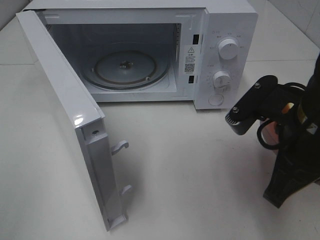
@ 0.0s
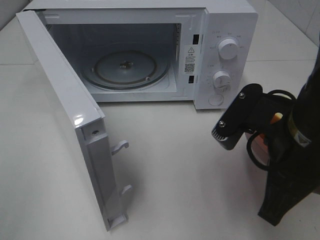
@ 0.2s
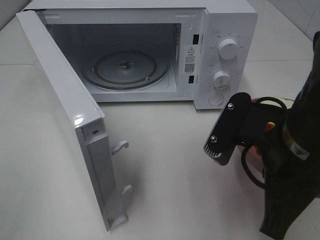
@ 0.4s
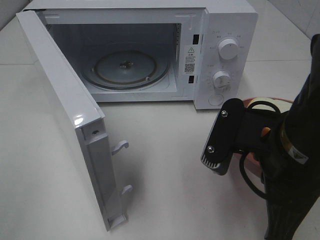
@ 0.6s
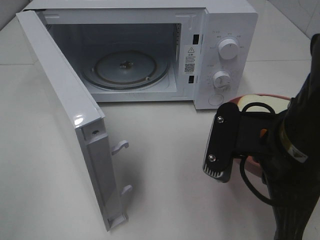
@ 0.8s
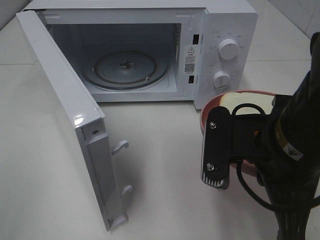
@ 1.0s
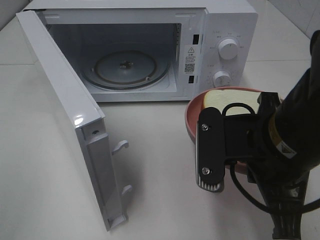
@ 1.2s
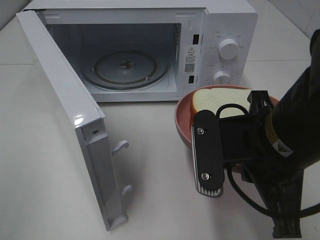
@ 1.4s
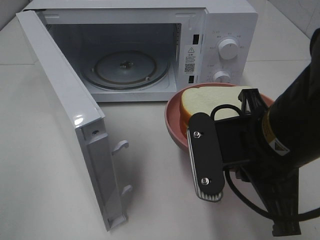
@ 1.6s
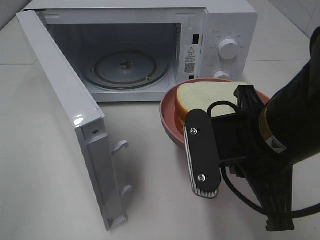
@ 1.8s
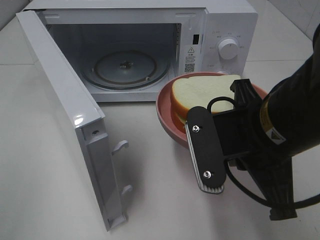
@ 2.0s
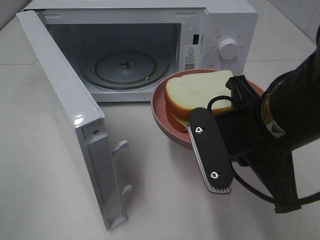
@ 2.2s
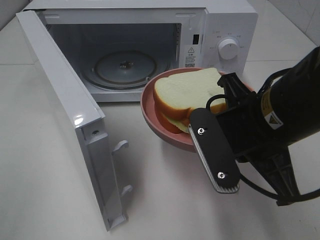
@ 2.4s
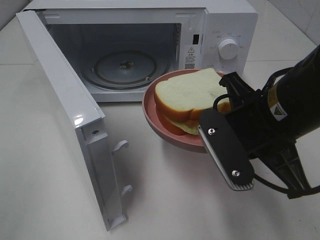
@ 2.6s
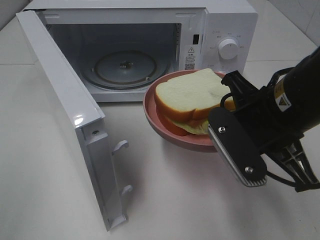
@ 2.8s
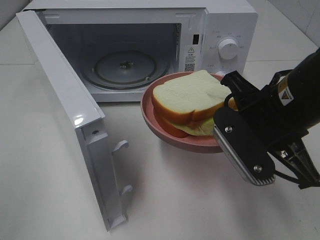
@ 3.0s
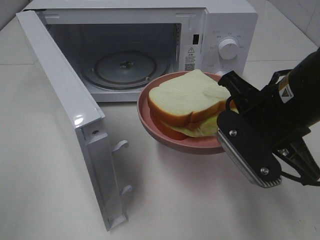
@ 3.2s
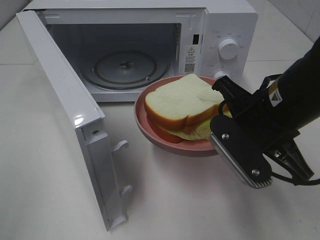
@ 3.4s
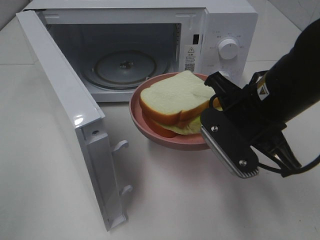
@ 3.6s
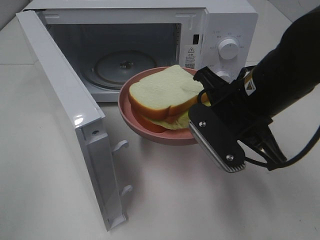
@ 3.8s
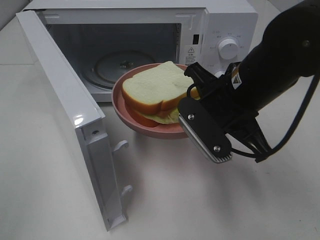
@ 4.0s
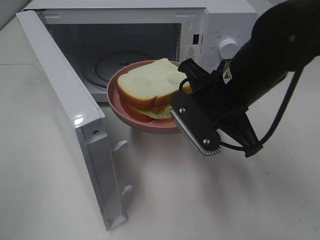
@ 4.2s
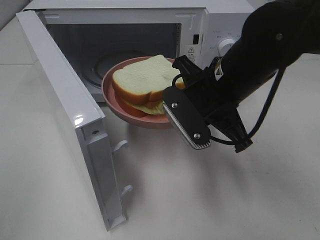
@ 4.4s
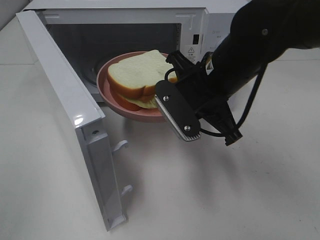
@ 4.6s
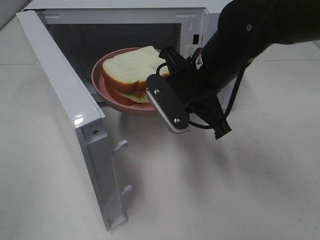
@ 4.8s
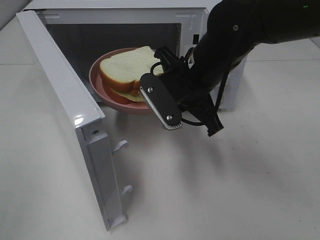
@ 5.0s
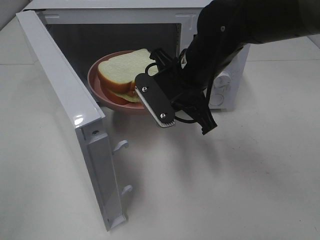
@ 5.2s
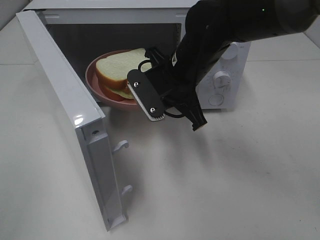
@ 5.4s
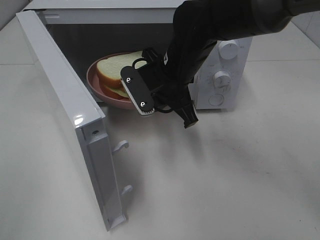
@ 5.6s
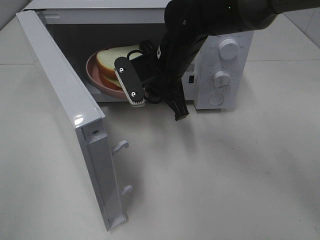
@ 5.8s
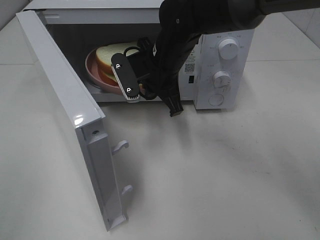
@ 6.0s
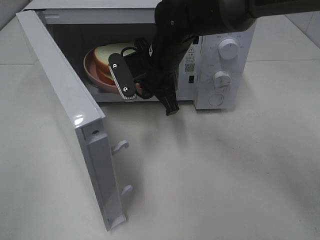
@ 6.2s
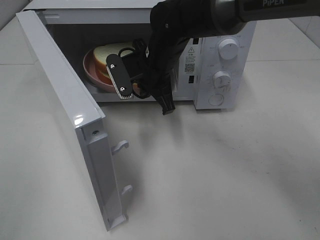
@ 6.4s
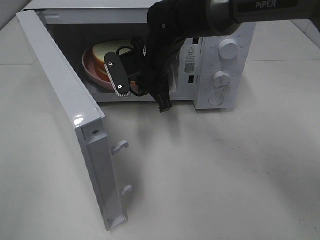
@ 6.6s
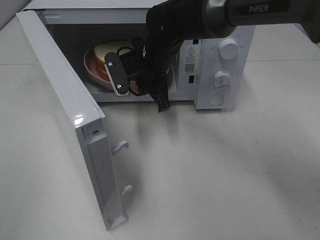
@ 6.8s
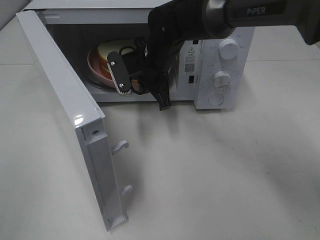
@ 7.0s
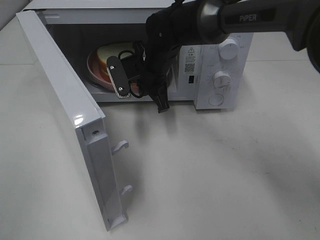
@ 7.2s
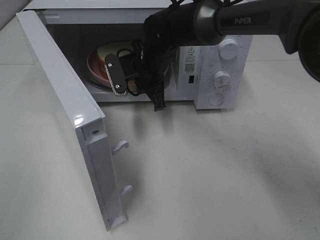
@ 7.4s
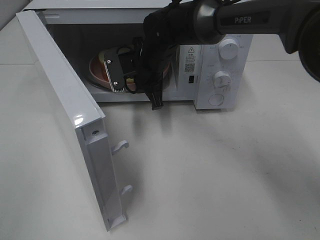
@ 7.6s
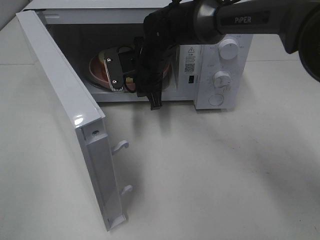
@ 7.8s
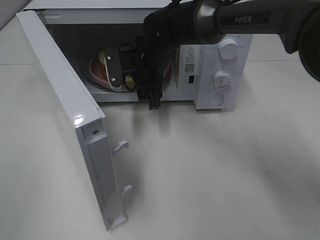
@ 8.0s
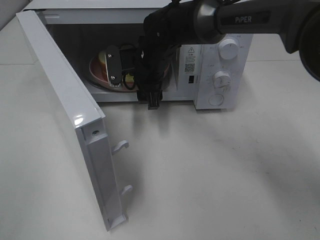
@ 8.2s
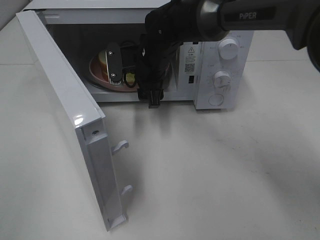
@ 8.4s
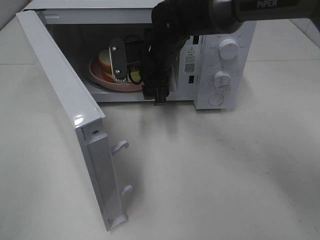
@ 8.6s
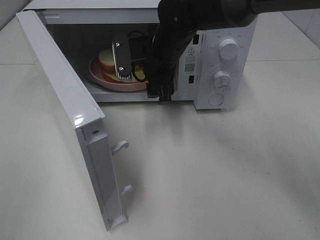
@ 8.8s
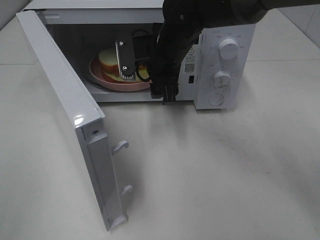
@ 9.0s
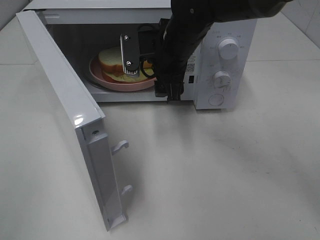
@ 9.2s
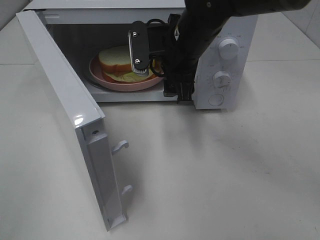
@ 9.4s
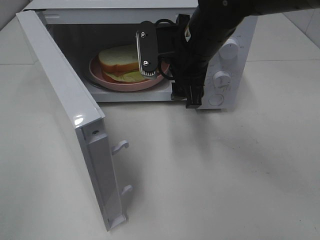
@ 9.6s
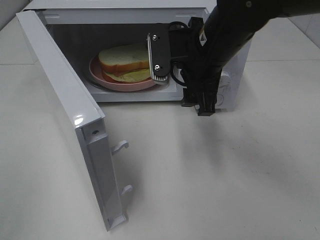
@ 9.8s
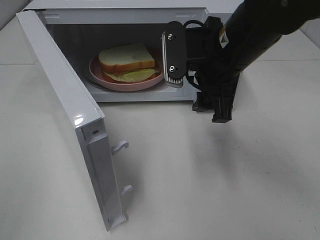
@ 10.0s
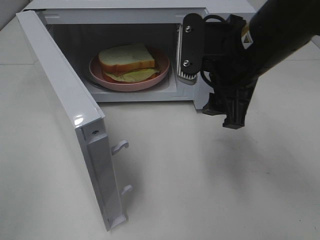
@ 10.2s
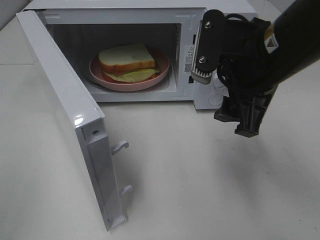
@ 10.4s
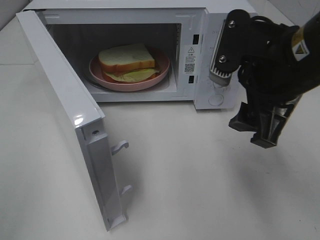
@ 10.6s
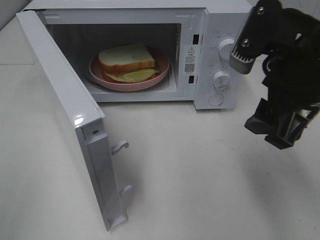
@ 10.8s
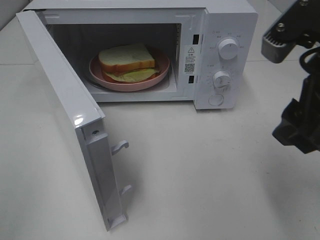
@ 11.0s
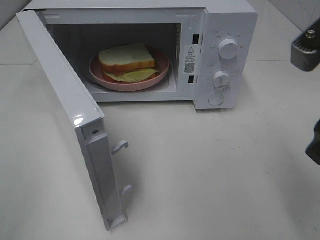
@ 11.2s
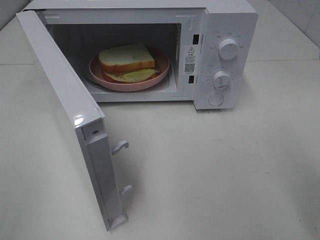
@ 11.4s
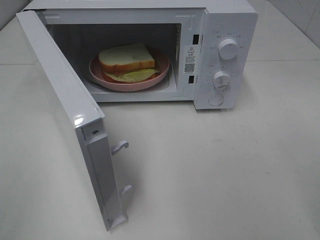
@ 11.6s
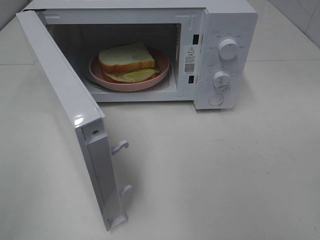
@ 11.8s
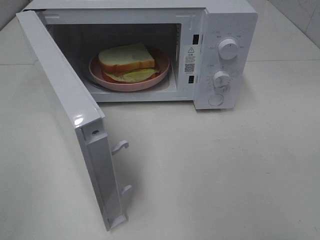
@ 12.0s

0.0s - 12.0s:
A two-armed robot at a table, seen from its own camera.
Task of the whole recording: Heat Sandwich.
Step, 0.0s - 8.6s: Right hand: place the plate in the microwave.
0.0s - 1.6s: The right gripper shifts by some 5 cm.
1.6s - 3.0s: The right gripper shifts by some 5 cm.
3.0s - 4.4s: The right gripper goes roughly 10 cm forward and to the left.
4.4s - 6.0s: The right gripper is displaced forward and to the left by roughly 15 cm.
6.0s - 7.6s: The right gripper heads forward, covering roughly 5 cm.
7.6s - 9.0s: The right gripper moves some 5 cm, and opens.
9.0s - 10.4s: The right gripper shifts approximately 20 cm backward, to the right and upward.
10.4s - 12.0s: The right gripper travels backward and to the right by roughly 20 cm.

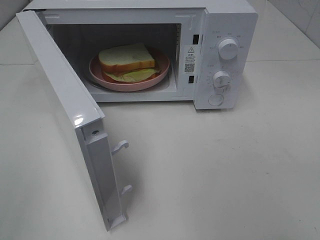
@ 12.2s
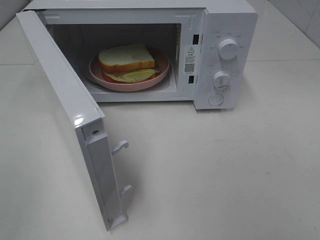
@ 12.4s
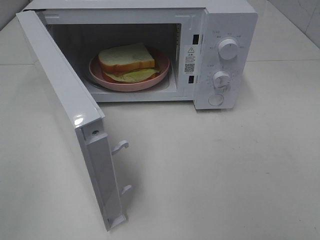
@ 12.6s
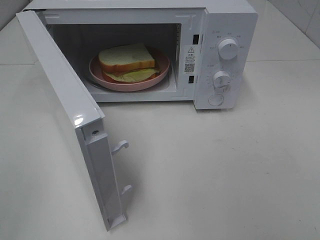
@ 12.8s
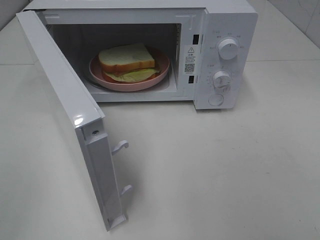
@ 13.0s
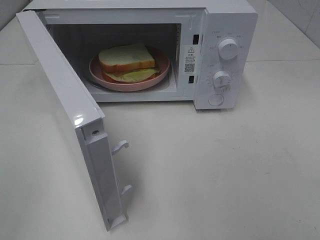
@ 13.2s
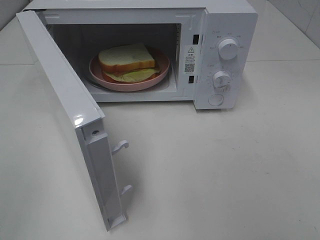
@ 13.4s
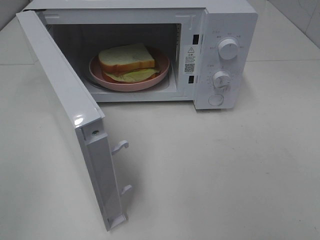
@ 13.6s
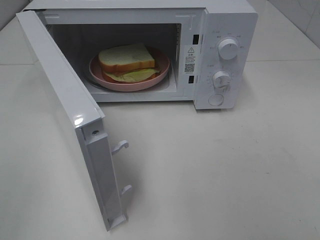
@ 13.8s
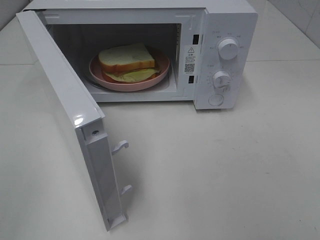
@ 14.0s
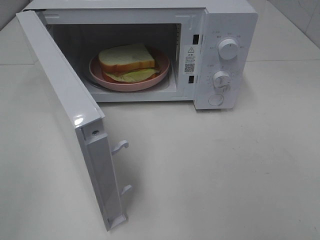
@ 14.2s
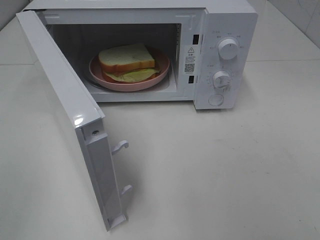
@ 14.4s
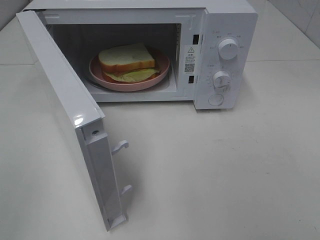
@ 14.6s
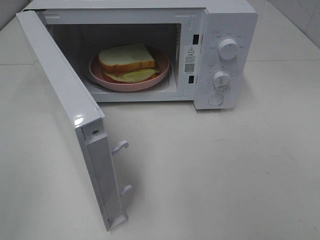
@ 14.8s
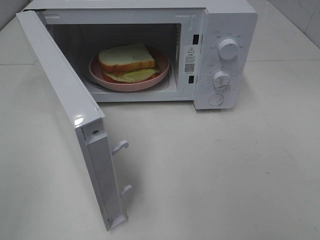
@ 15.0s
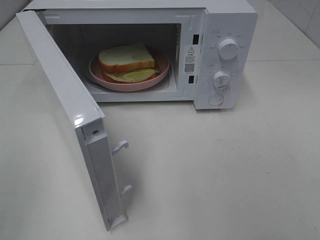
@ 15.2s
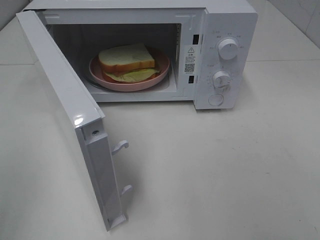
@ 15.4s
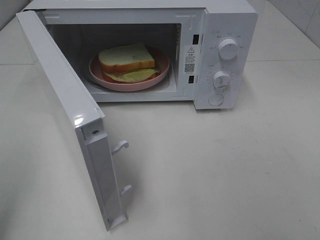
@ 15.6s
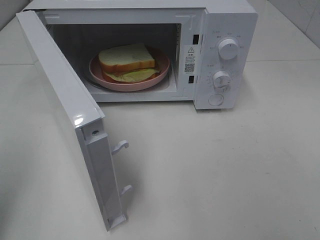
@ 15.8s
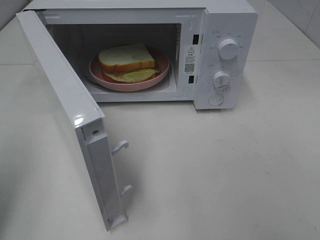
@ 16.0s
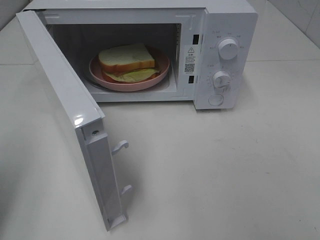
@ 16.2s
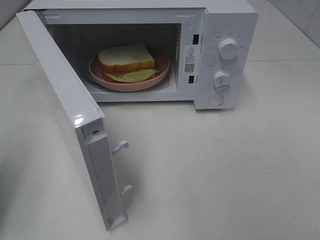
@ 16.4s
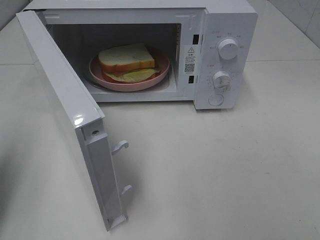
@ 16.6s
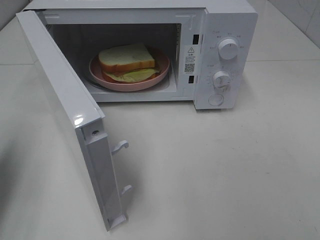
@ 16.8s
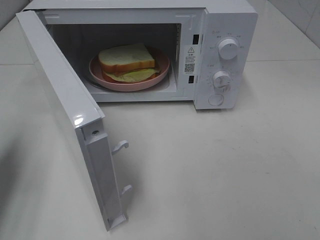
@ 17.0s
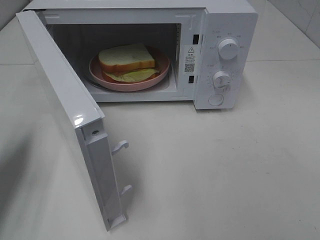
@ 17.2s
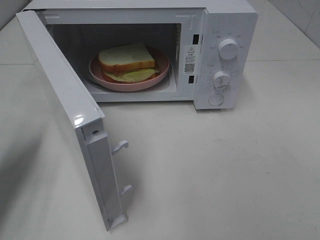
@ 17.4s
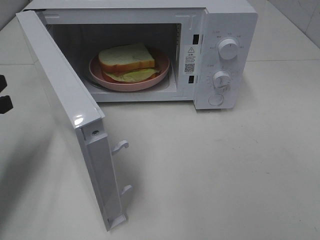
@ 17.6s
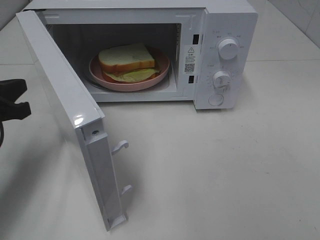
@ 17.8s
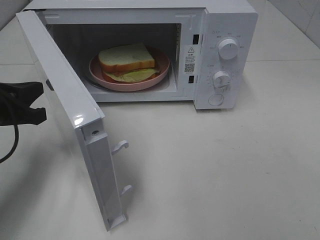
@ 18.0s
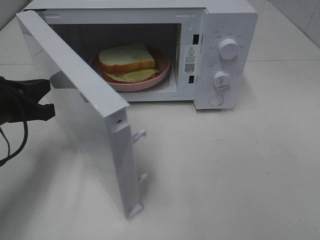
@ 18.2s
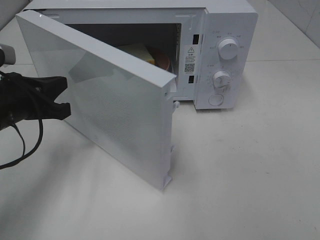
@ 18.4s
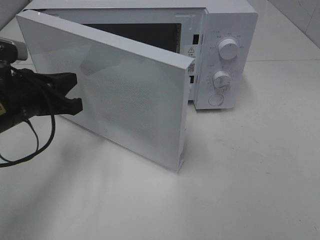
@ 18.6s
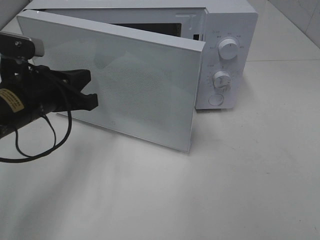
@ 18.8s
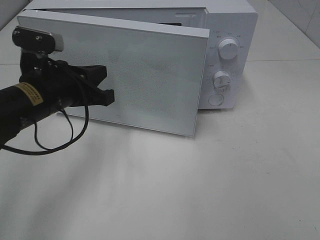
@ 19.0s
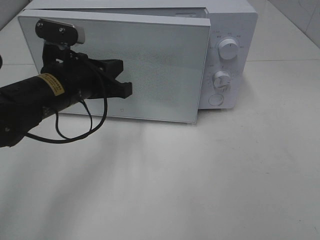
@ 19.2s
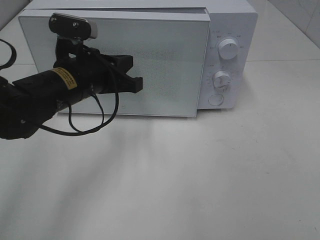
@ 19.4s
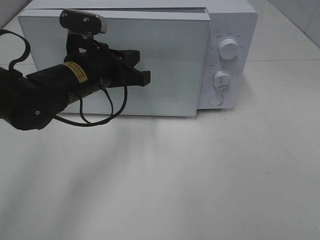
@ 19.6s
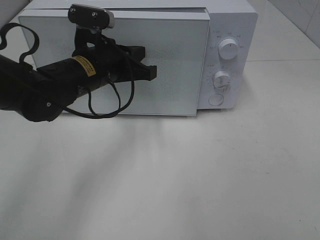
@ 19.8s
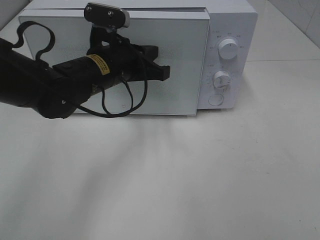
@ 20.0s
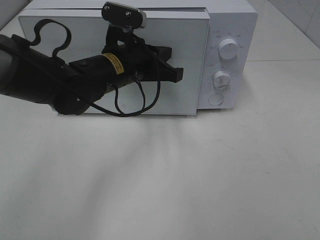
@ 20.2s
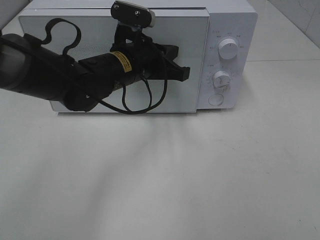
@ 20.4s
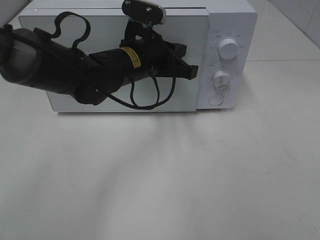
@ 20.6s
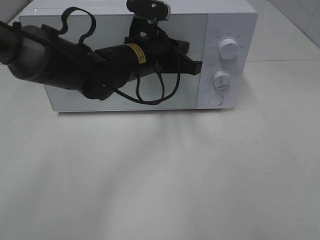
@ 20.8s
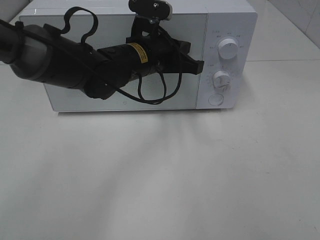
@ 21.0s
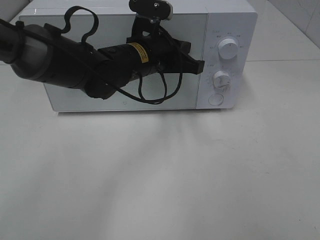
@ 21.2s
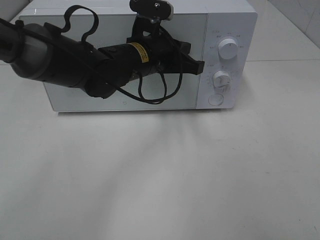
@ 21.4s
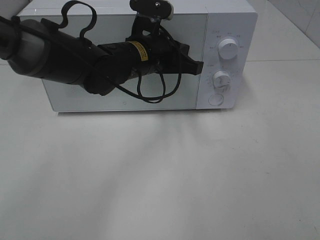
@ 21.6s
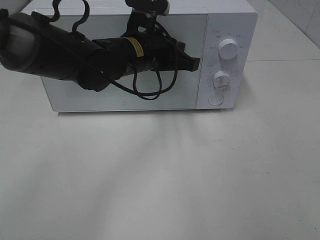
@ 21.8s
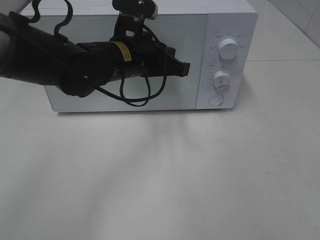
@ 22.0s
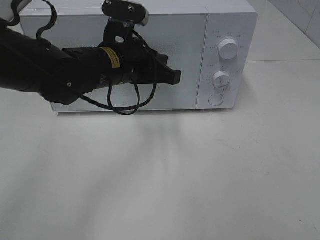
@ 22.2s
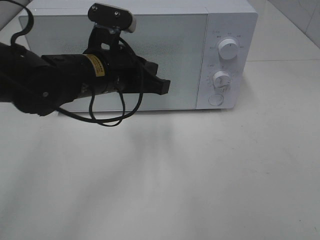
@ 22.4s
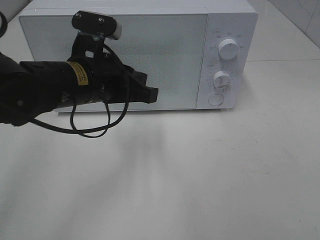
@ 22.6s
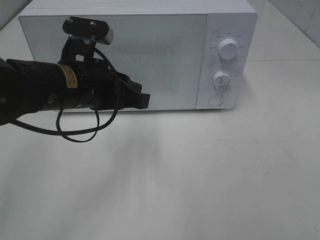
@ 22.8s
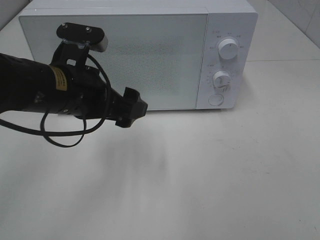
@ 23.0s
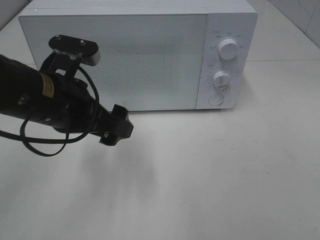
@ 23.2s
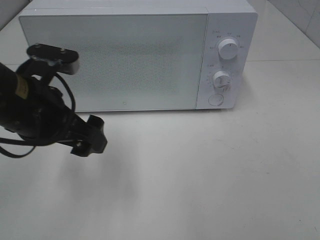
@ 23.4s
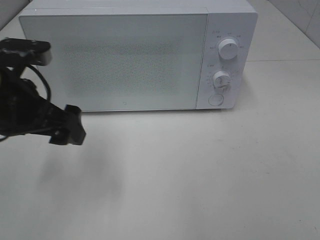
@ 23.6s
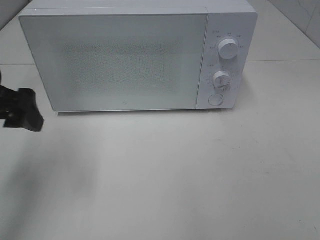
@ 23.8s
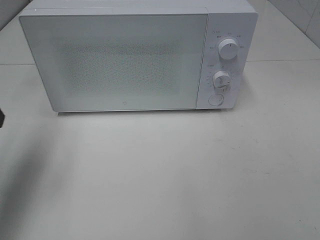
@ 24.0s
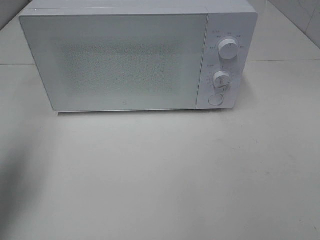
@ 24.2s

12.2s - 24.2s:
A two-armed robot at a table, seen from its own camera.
Task of the whole recording: Heat Sandwich.
Step, 12.2s - 22.0s: Left hand: close the microwave door.
15.2s - 16.6s: The left gripper goes approximately 15 cm forward, and closes.
16.6s - 18.2s: The left gripper moves forward, to the right and downward, approximately 15 cm.
18.2s - 19.8s: The left gripper travels to the right and forward by roughly 15 cm.
19.8s - 21.2s: The left gripper moves to the right, about 5 cm.
21.2s - 22.6s: The left gripper goes approximately 10 cm backward and to the left.
22.6s - 24.2s: The left gripper goes some 25 cm to the left, and opens its fingers.
